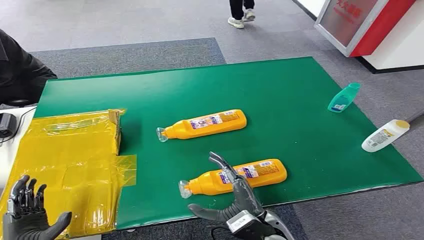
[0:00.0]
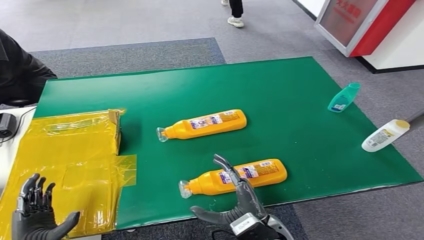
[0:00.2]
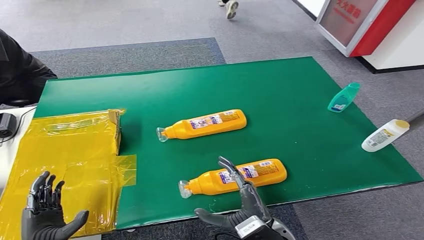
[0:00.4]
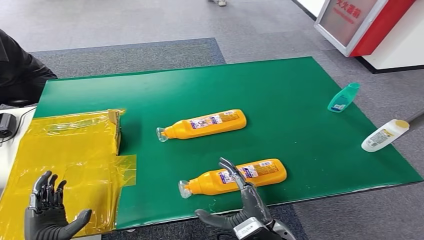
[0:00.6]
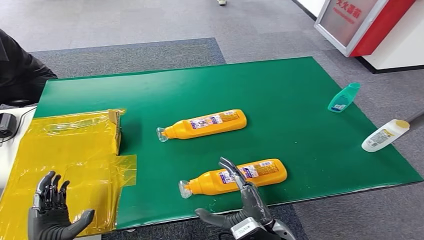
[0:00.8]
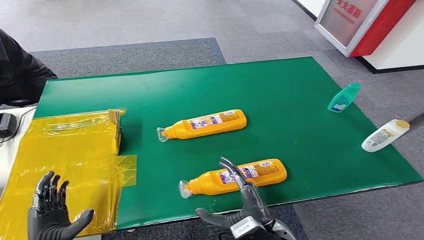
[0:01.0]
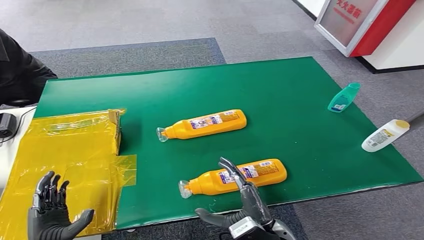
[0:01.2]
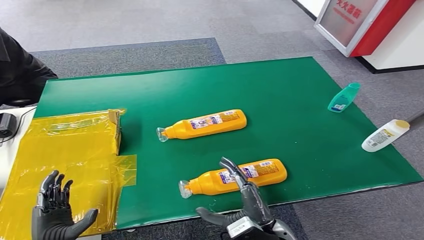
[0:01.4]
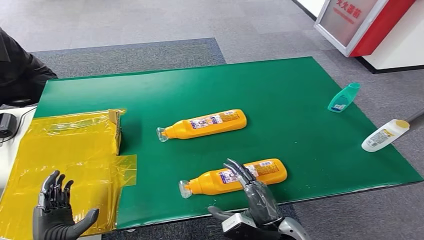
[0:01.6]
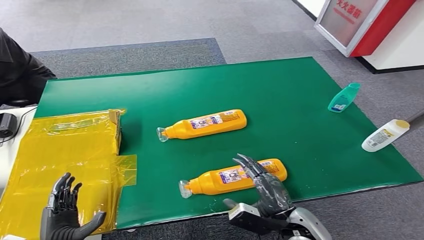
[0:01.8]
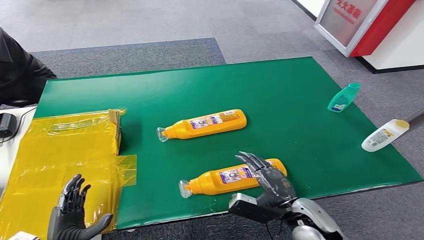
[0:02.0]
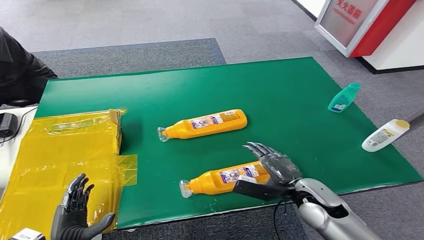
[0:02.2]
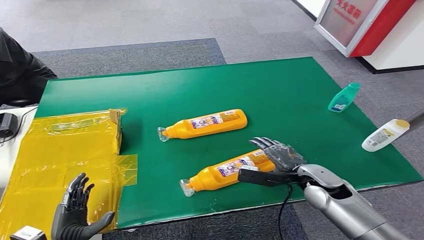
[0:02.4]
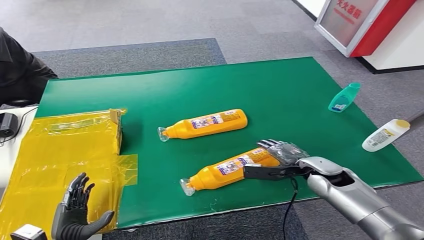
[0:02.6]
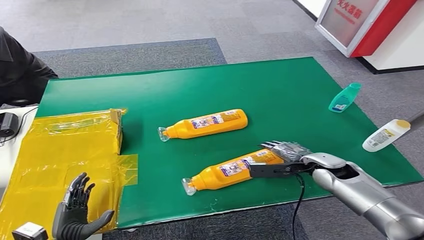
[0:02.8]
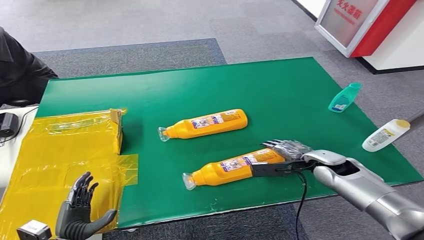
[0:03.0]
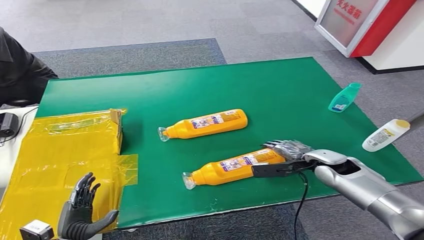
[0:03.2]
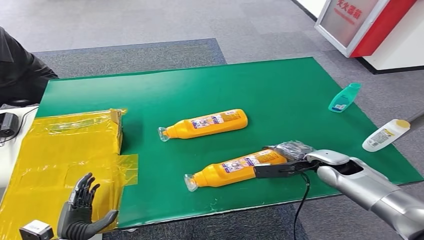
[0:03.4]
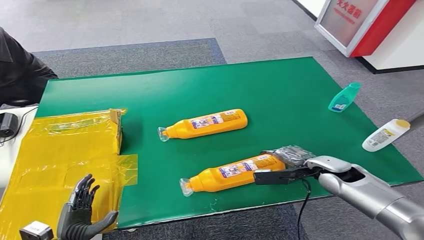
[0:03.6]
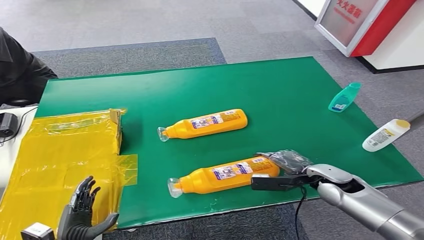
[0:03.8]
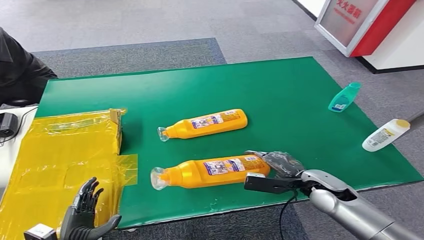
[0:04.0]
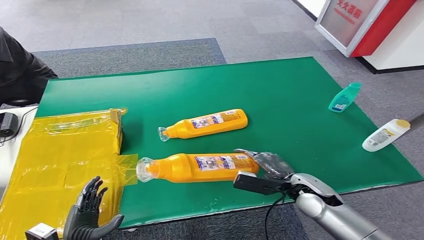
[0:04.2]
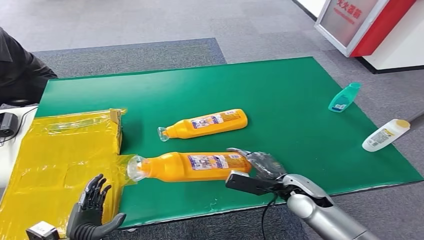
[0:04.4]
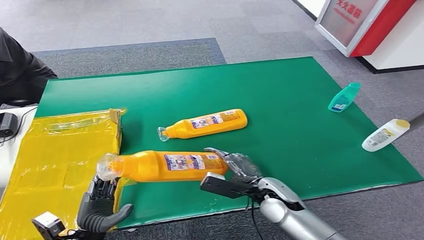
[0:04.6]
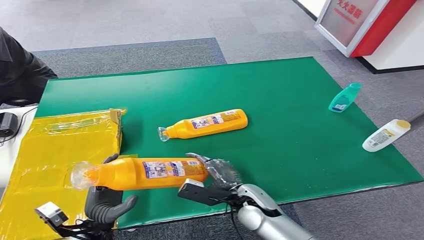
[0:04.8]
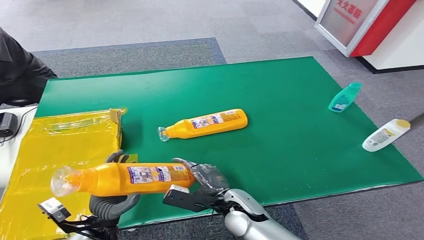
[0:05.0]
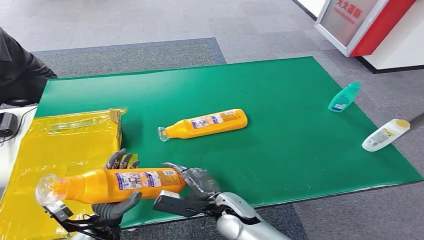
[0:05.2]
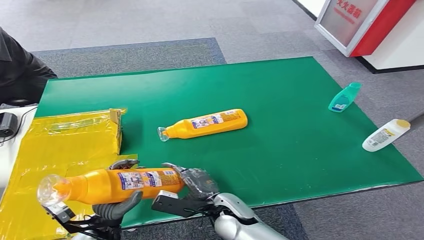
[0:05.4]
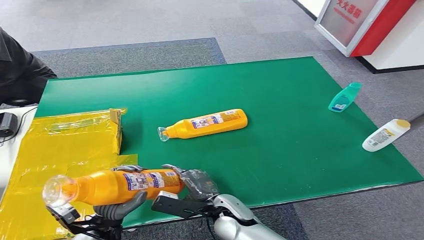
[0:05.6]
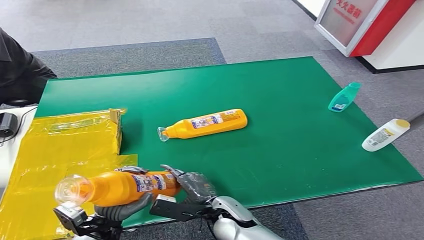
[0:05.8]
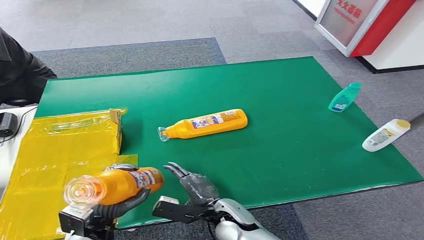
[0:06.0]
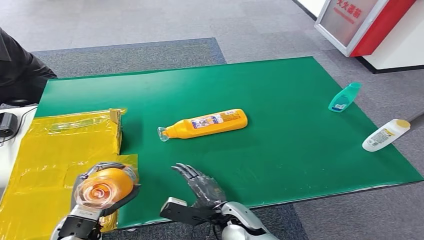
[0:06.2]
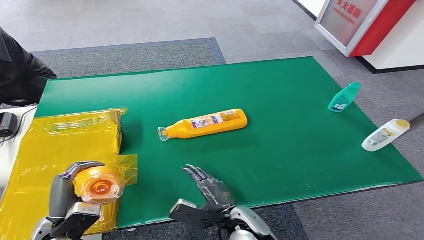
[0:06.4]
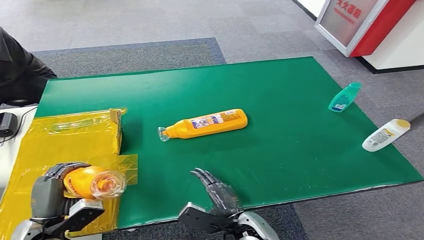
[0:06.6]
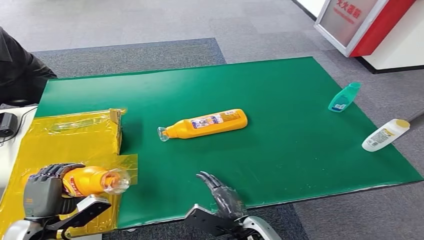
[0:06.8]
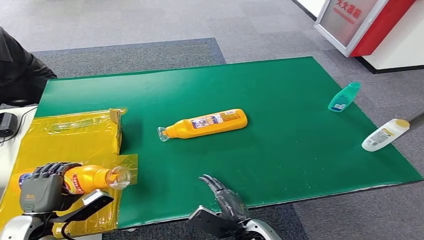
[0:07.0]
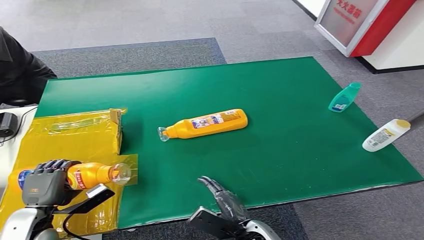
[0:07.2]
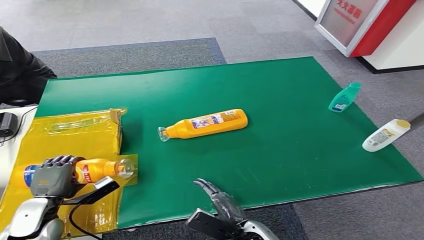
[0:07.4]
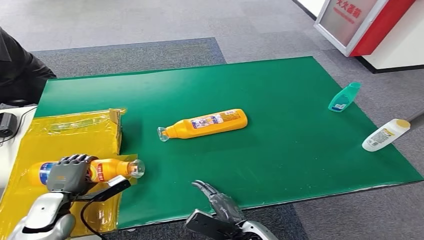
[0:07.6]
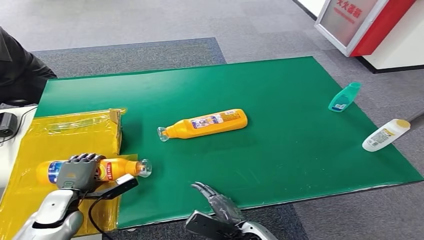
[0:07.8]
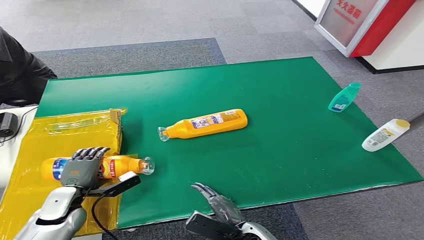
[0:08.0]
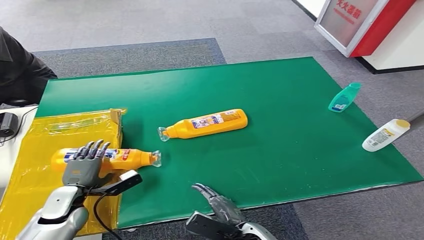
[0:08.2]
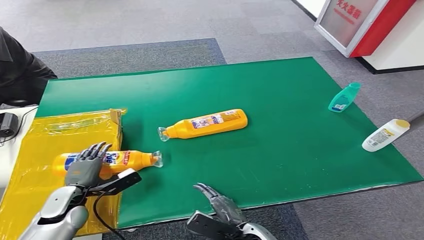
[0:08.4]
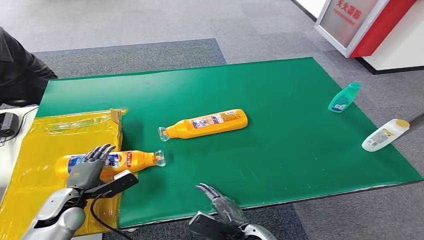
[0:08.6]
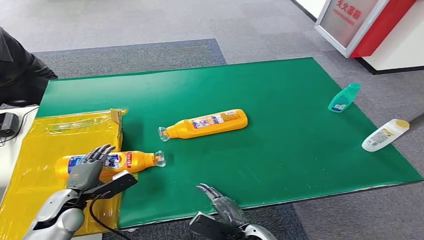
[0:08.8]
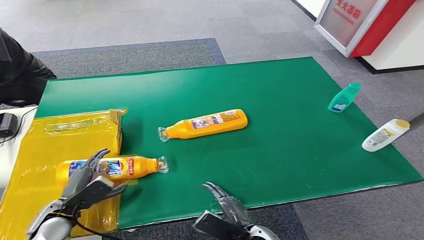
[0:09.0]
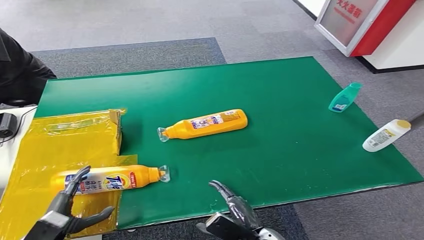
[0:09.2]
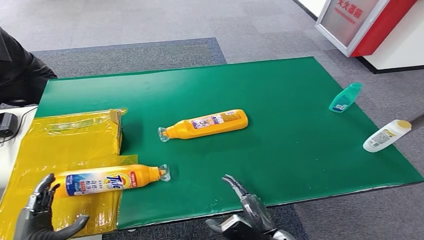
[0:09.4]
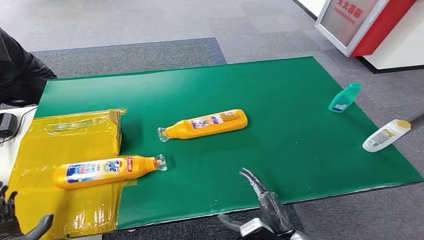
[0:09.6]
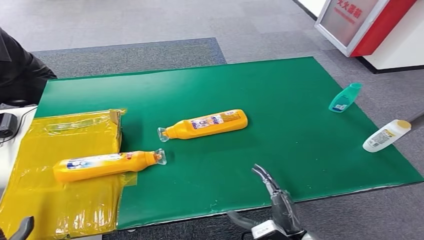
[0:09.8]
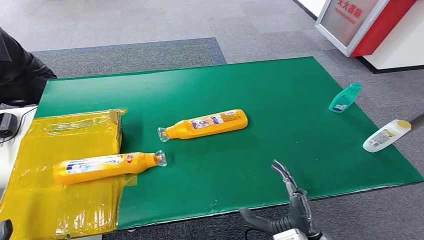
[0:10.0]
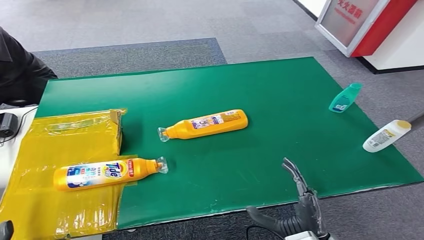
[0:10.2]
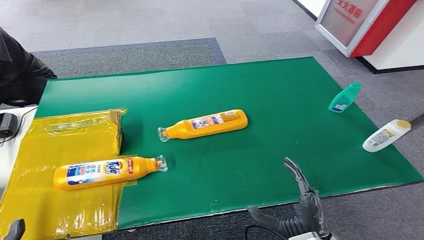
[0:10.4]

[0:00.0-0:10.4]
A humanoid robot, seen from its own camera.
Step, 0:00.0 to 0:04.2: Pick up the bottle from the table.
Step, 0:04.6 to 0:10.4: Turn the bottle to the front side.
0:01.4 to 0:03.0: The right hand heads forward and to the right, covering about 25 cm.
0:03.0 to 0:04.4: The right hand travels to the left and backward by some 10 cm.
0:04.4 to 0:06.0: The left hand travels upward, to the right and forward by roughly 10 cm. The right hand moves to the left, some 15 cm.
0:06.0 to 0:07.4: The left hand moves to the left, roughly 15 cm; the right hand moves backward and to the right, roughly 10 cm.
0:09.0 to 0:10.4: The left hand heads backward, covering roughly 15 cm; the right hand travels to the right and upward by roughly 15 cm.
